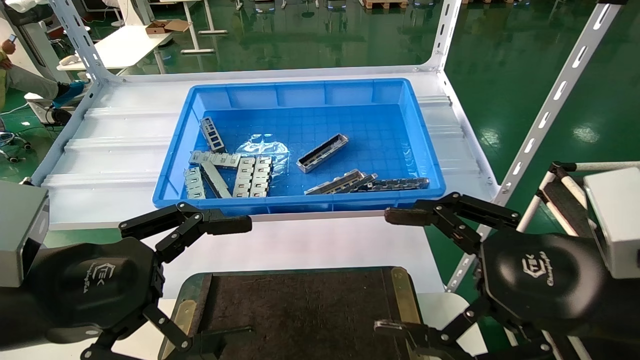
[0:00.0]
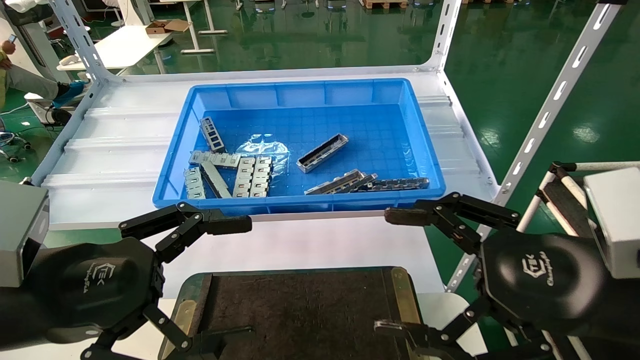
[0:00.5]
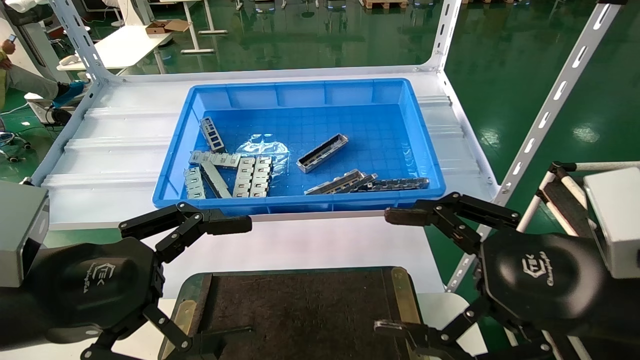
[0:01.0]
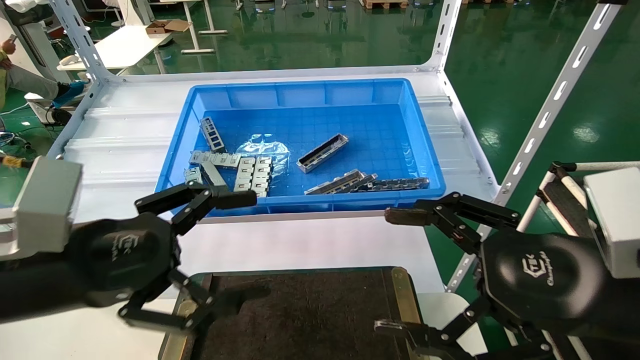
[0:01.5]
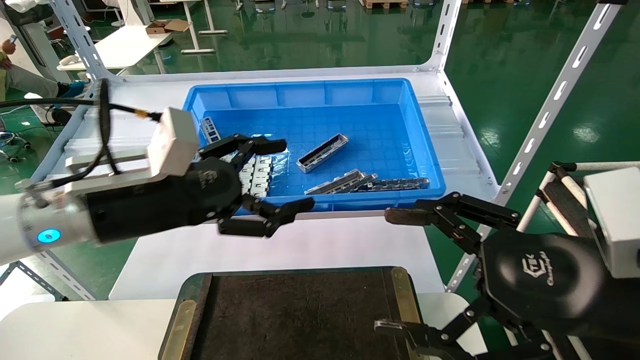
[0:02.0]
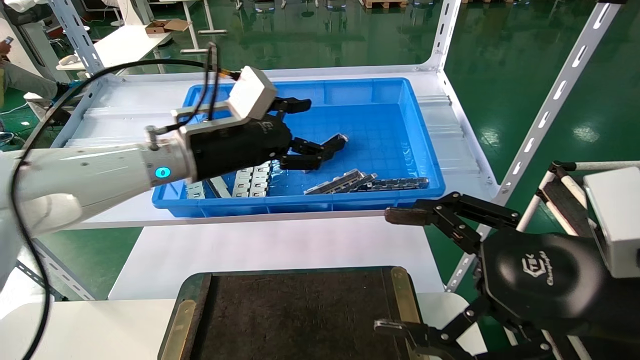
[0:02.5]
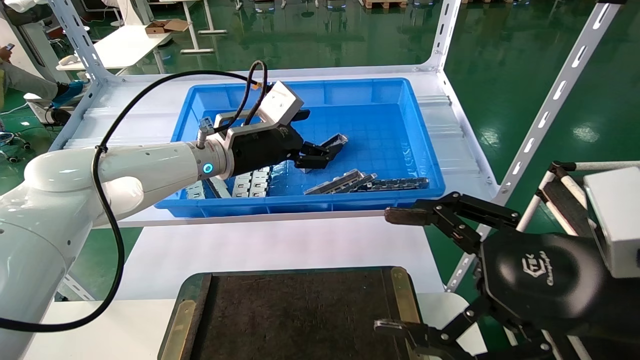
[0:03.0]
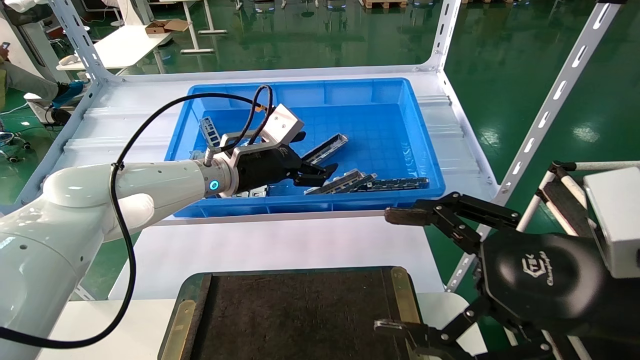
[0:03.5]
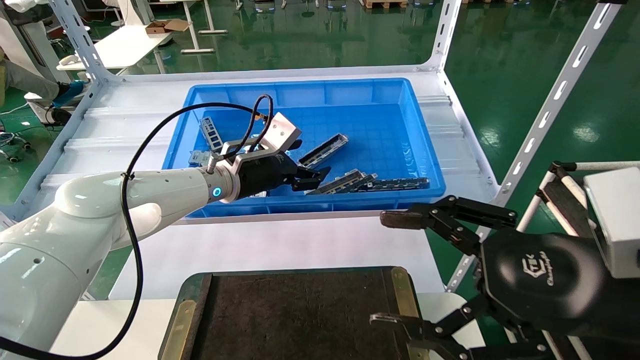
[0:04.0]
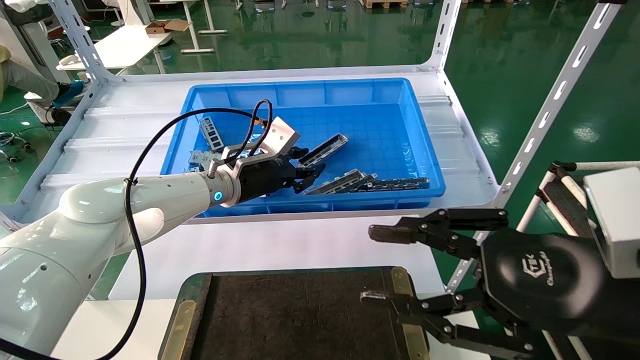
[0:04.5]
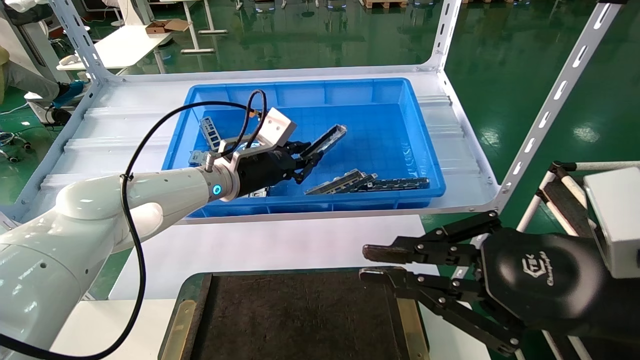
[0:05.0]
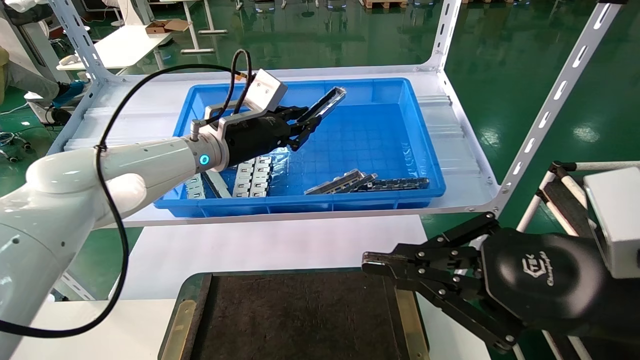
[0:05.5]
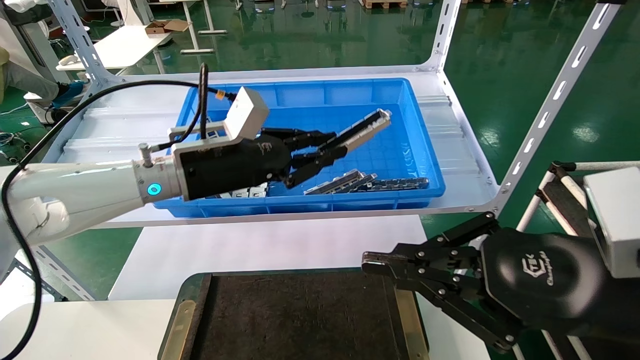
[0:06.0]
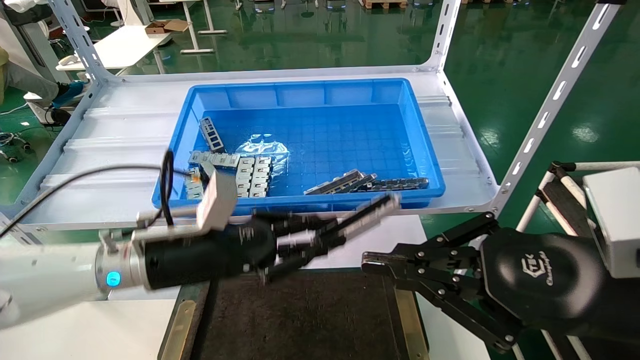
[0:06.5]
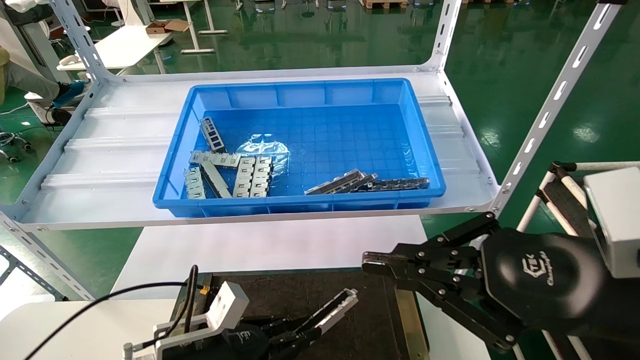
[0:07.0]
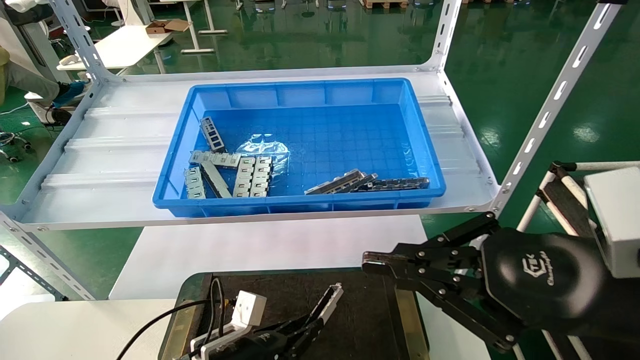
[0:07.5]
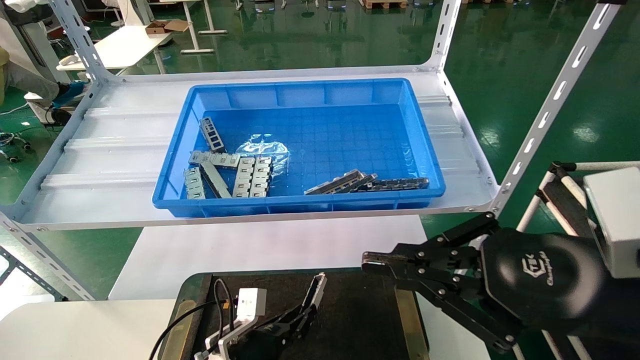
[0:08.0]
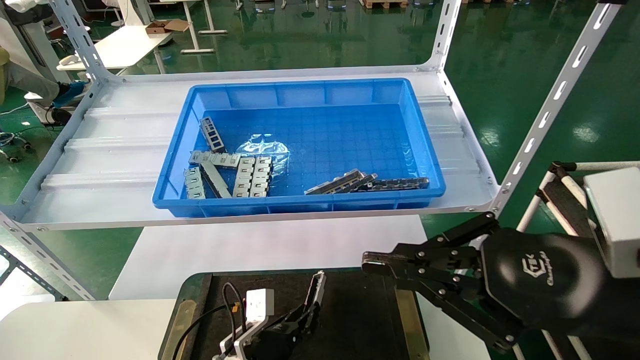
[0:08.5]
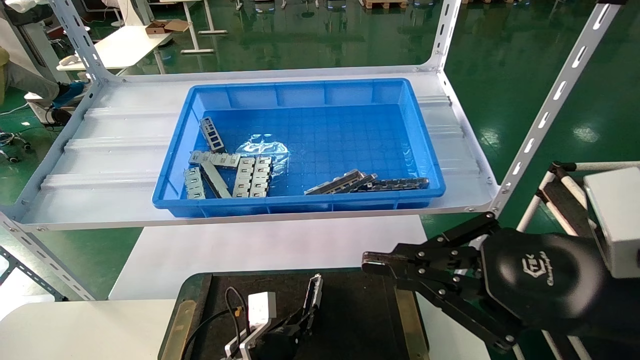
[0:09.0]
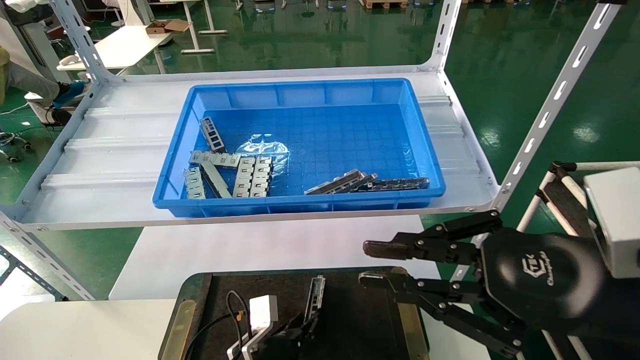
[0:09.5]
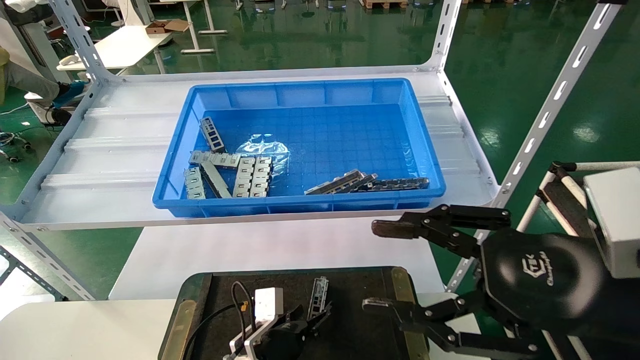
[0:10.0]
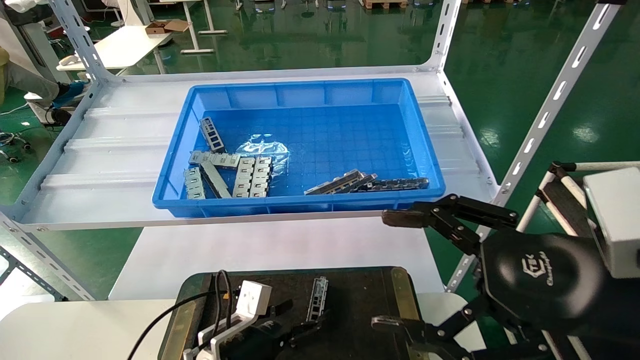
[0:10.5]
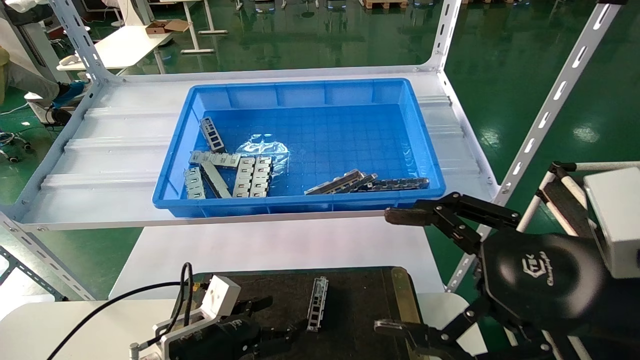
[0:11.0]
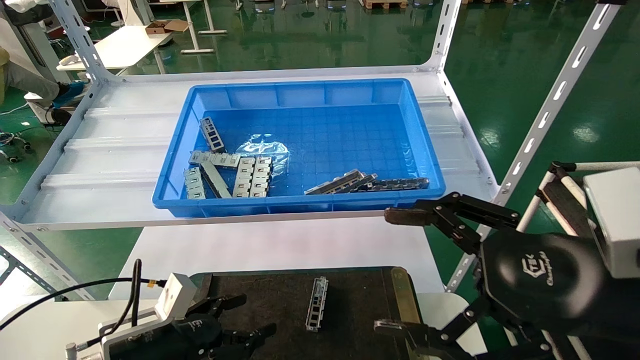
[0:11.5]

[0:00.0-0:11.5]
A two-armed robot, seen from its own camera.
Task of the whole recording: Grasp the part with one hand and place it on the black container.
Step, 0:01.5 to 0:05.5: Pick up the front USB bracket from the feeding area.
Step, 0:06.0 to 0:09.5: Place the front USB bracket into the box.
0:00.0 to 0:02.0: The left gripper moves forward, about 10 cm.
0:02.0 to 0:04.0: The left gripper goes approximately 20 cm forward and to the right.
0:04.0 to 0:06.0: The right gripper closes, while the left gripper shifts roughly 10 cm backward, and closes its fingers.
0:06.0 to 0:07.5: The left gripper heads downward, covering some 30 cm.
0:07.5 to 0:09.5: The left gripper moves to the right, roughly 5 cm.
0:09.5 to 0:11.5: The left gripper heads to the left and upward, covering about 20 cm, and opens up. The right gripper opens up.
